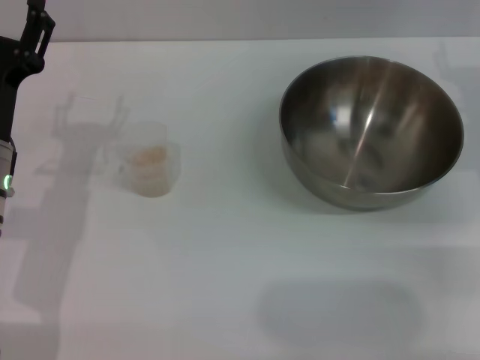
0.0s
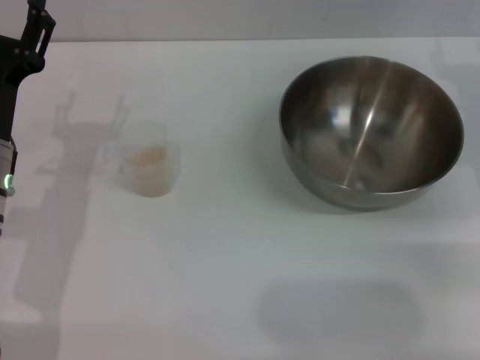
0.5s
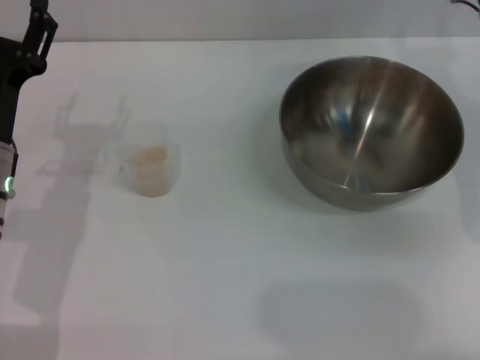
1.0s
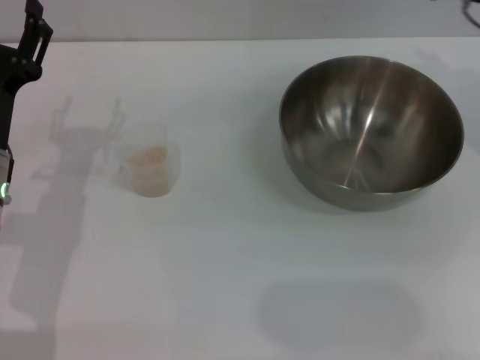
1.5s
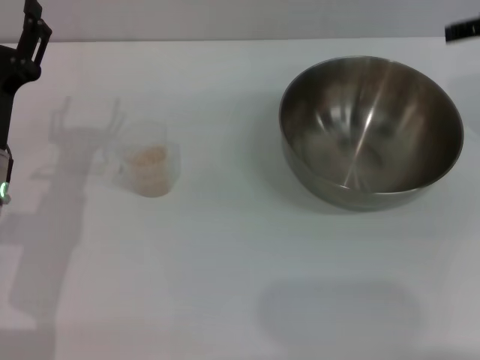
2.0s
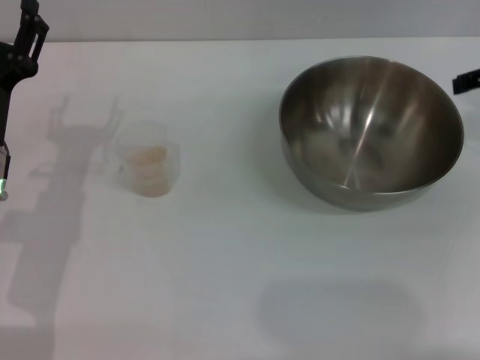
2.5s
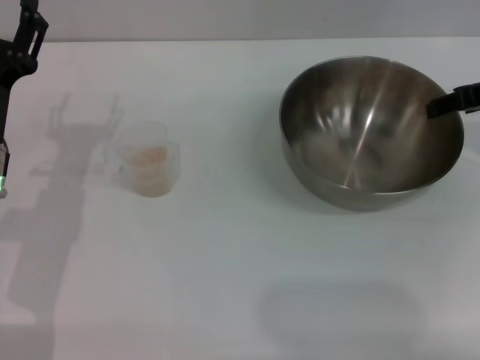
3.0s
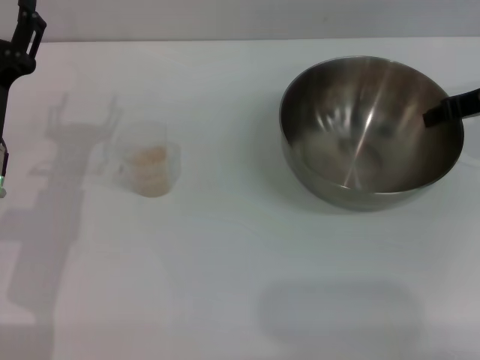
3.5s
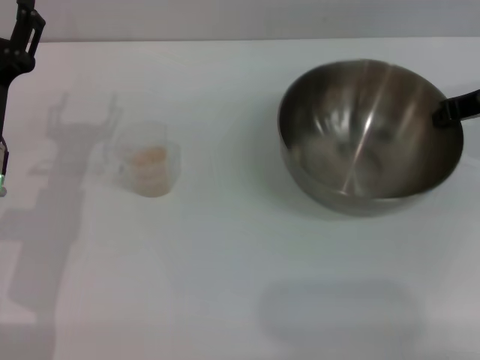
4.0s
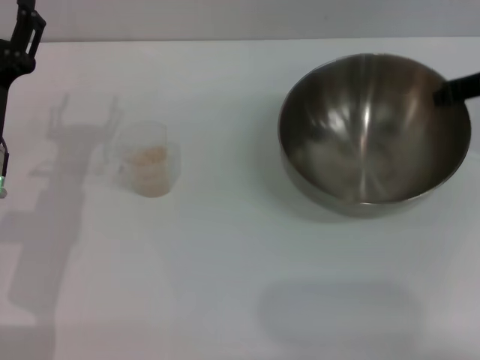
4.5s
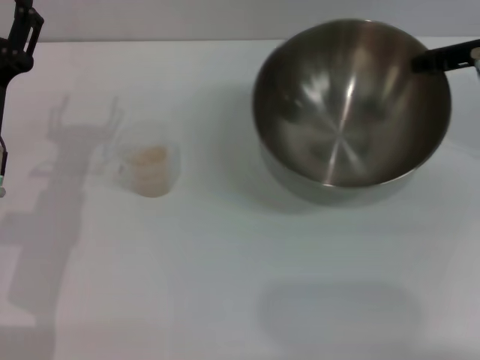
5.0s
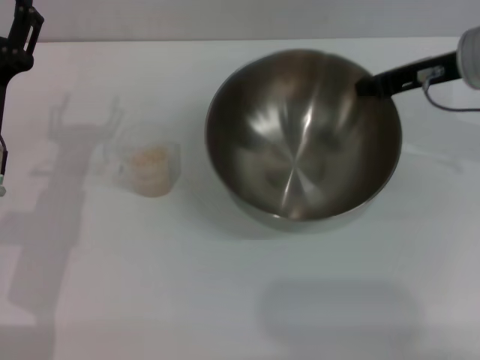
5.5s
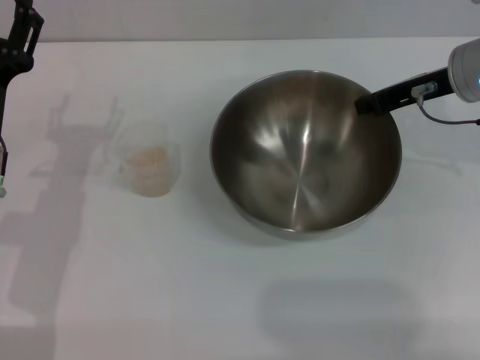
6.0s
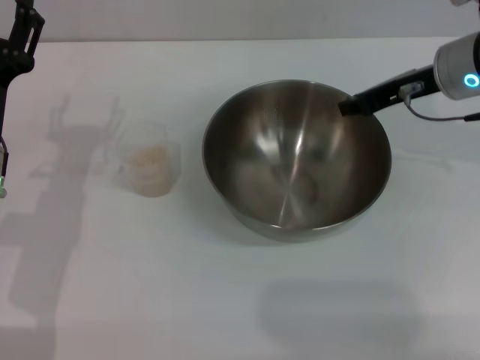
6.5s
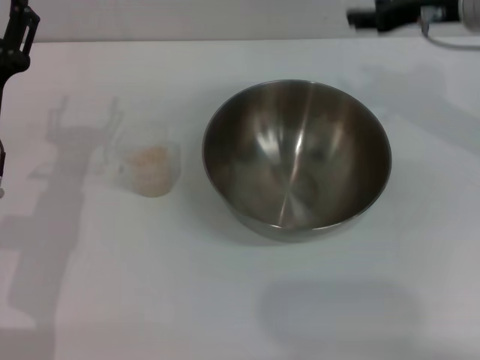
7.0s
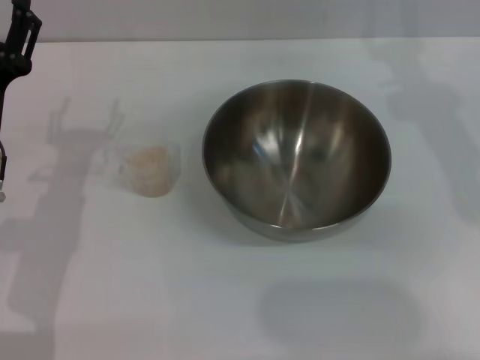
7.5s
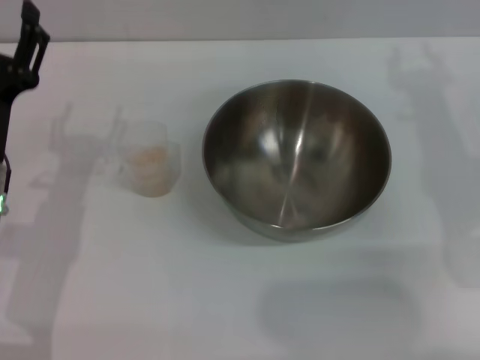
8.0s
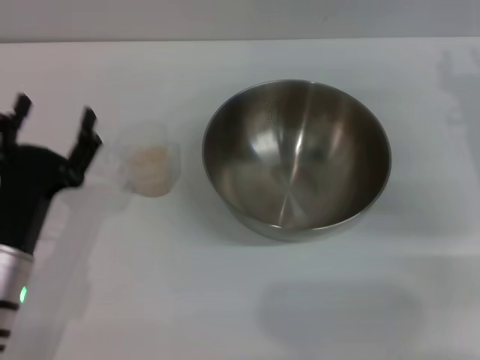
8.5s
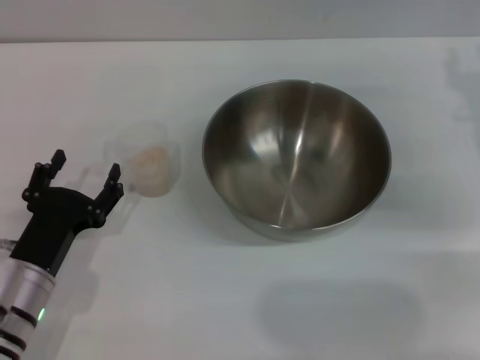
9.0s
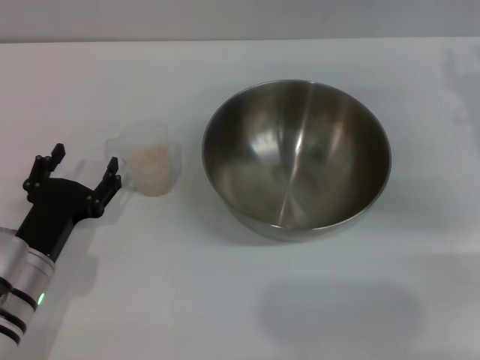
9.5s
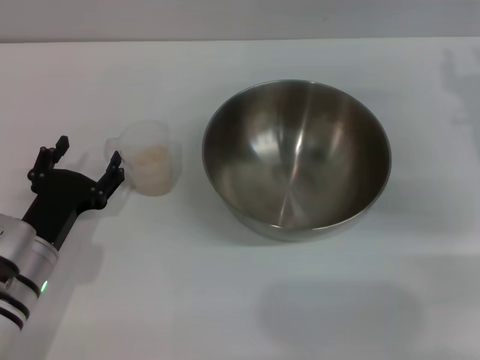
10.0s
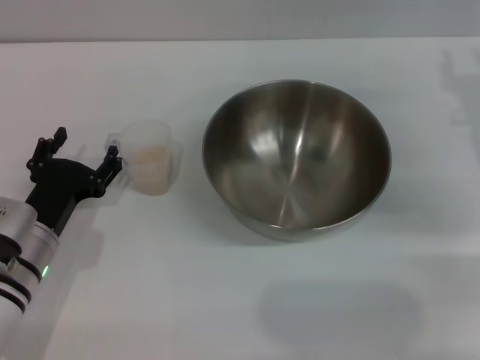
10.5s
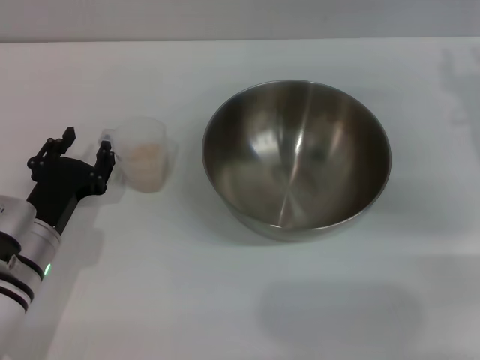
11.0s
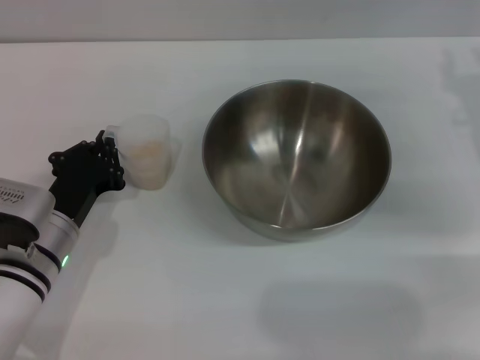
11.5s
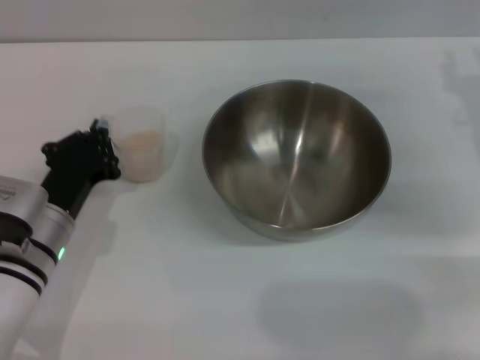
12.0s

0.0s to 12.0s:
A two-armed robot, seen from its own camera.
Task of the whole recording: Place the bowl in the middle of the table with one hand and pour the rice from the grain cup into it with the other hand.
Step, 0.0s to 4.5s: Pick up the bowl with the right gripper.
Step, 5.5s to 6.5s: Place the bowl in the center of view with the right gripper.
0.0s to 2.0s: The right gripper heads upward, covering some 15 cm.
2.0s to 4.0s: The right gripper moves downward, some 10 cm, and closes its fingers.
4.0s to 6.0s: The right gripper travels to the left by some 5 cm.
6.0s to 8.0s: The right gripper opens its fingers.
8.0s to 10.0s: The left gripper shifts some 5 cm downward, while the right gripper moves to the right, about 5 cm.
10.0s to 12.0s: The left gripper closes its fingers.

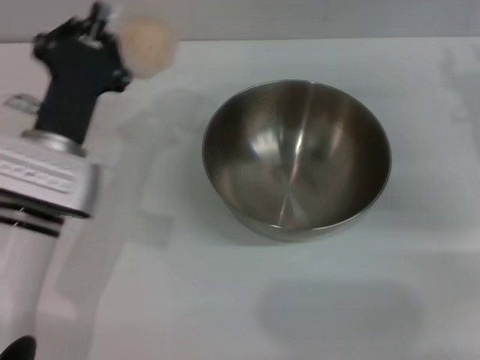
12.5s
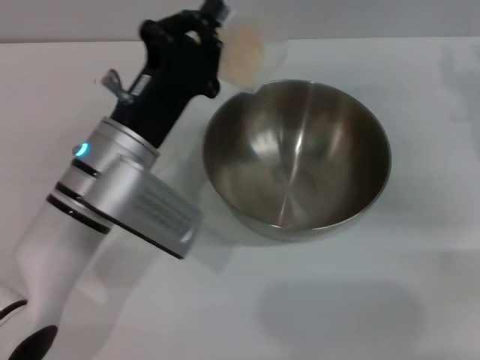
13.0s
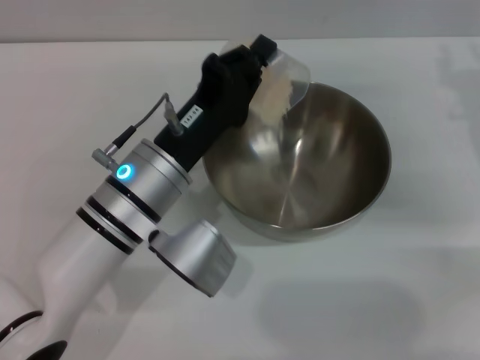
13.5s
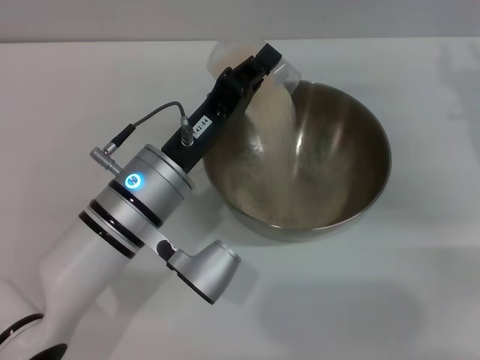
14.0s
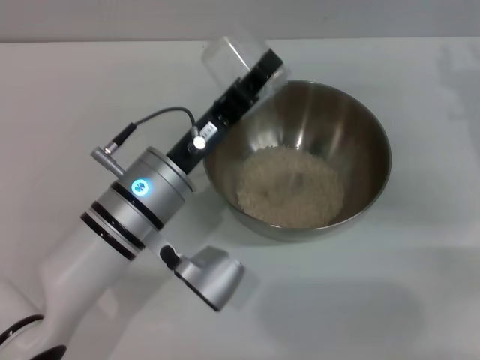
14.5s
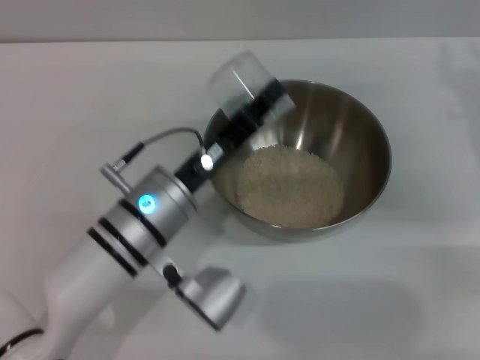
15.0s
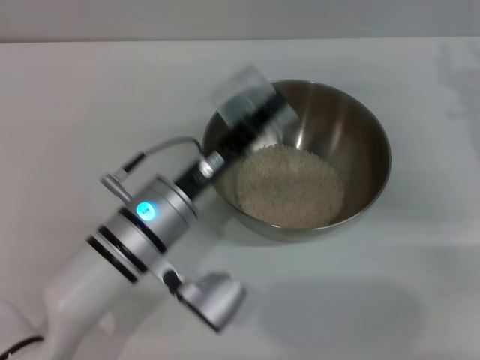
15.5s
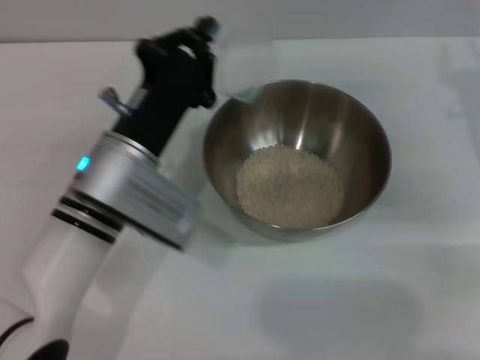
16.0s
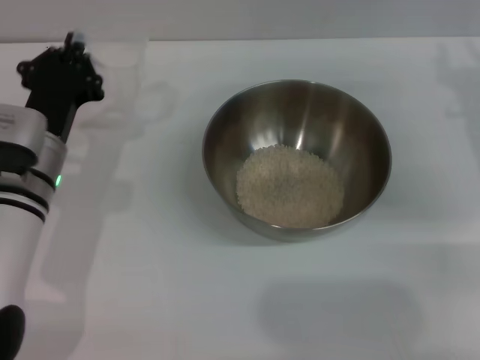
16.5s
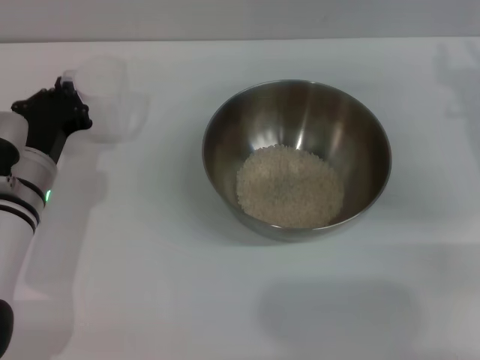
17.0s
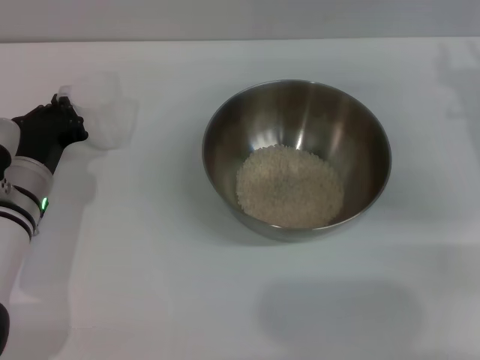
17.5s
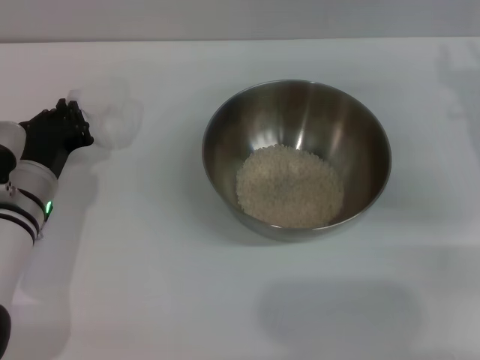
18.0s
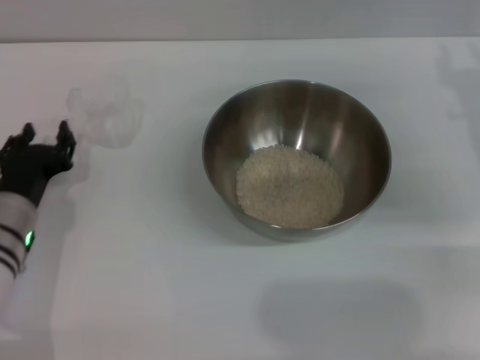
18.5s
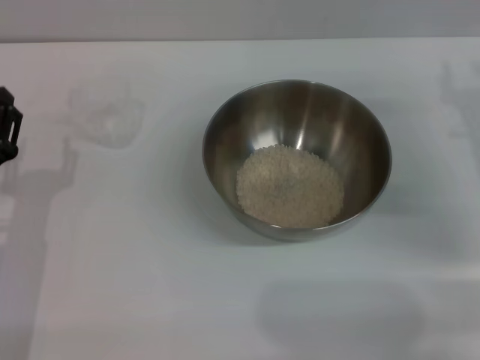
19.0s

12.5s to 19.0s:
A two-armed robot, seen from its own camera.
Task of the whole recording: Place the bowl in the middle of the table with one hand and pour the rice from the grain cup into it with the other hand.
Step, 12.5s to 15.5s: Pour the rice from the cup into the bowl with the left gripper.
Step, 16.0s to 18.0s: Place the cup on the table with the left gripper.
12.5s to 14.5s: The left gripper is displaced to the right by about 10 cm.
14.5s to 17.0s: The left gripper is displaced to the left by some 10 cm.
17.0s to 19.0s: The left gripper heads backward, covering approximately 10 cm, and opens up.

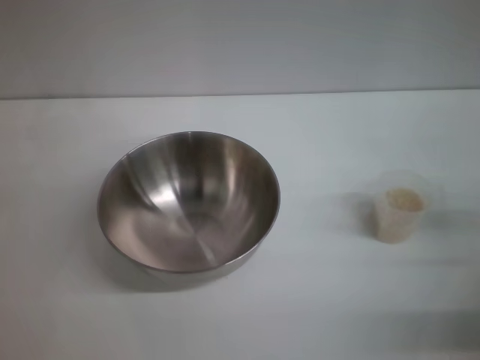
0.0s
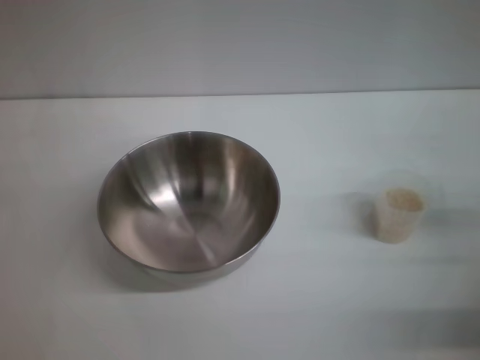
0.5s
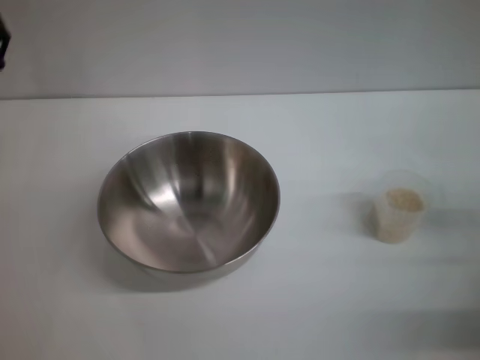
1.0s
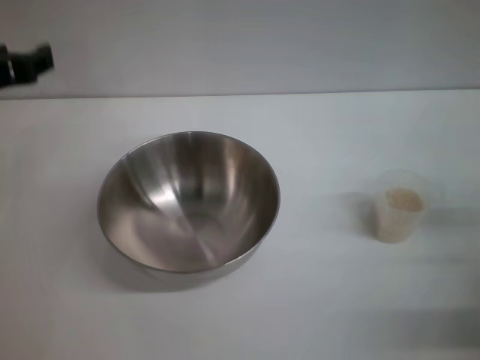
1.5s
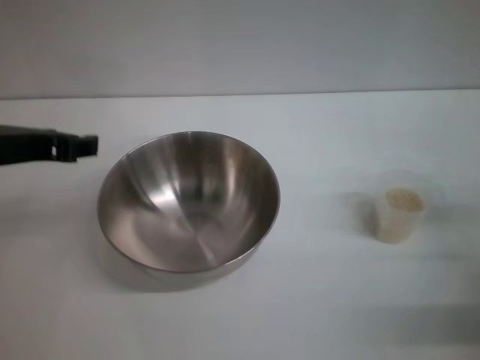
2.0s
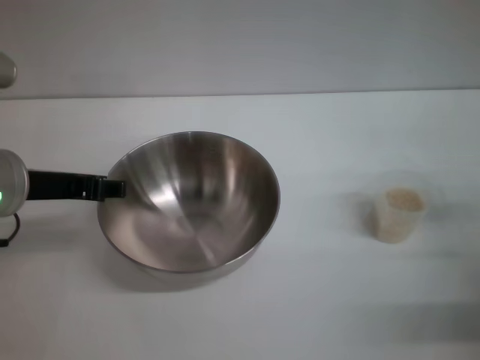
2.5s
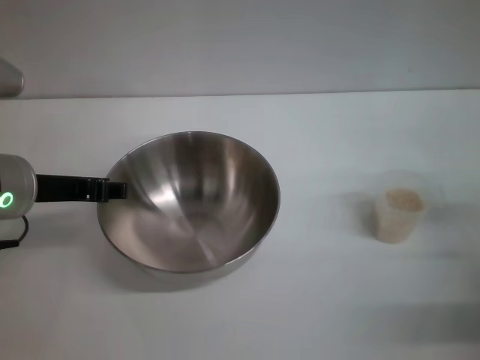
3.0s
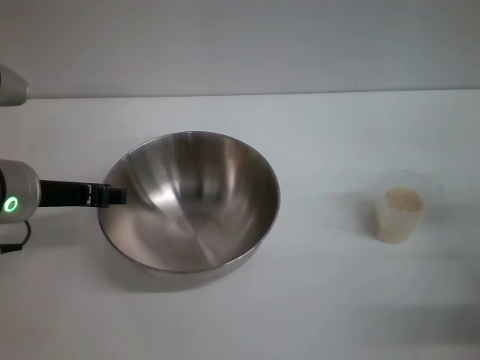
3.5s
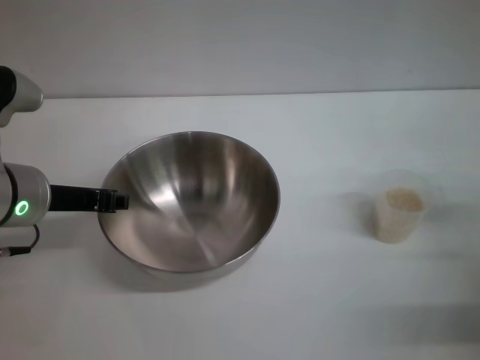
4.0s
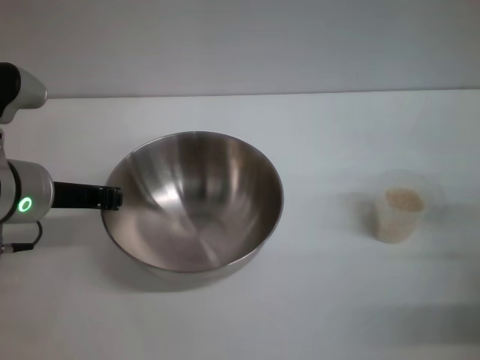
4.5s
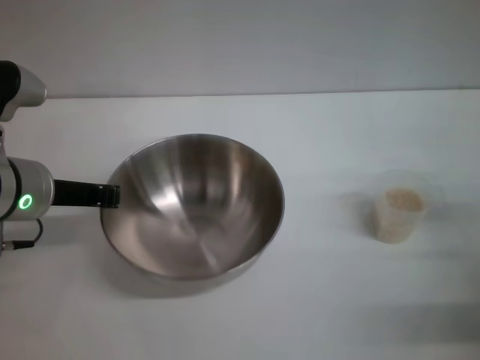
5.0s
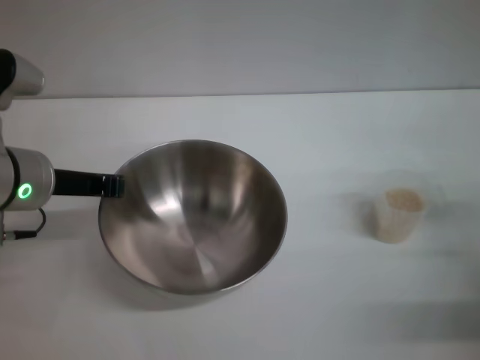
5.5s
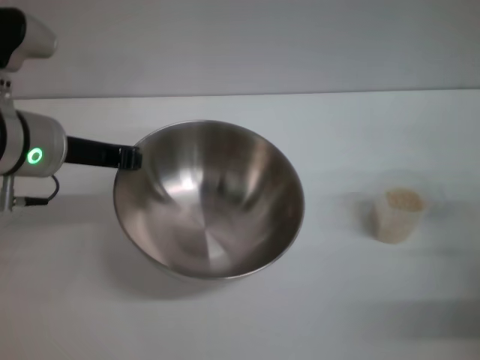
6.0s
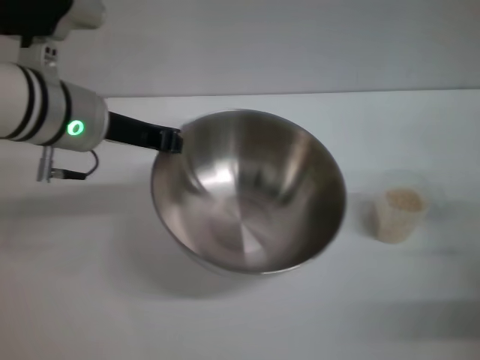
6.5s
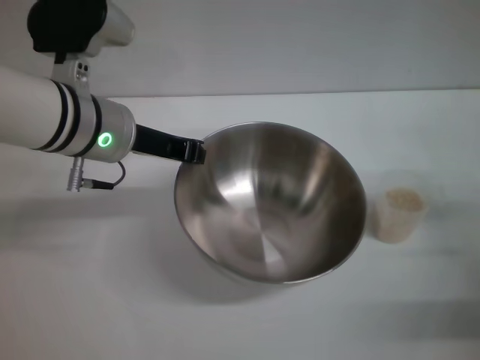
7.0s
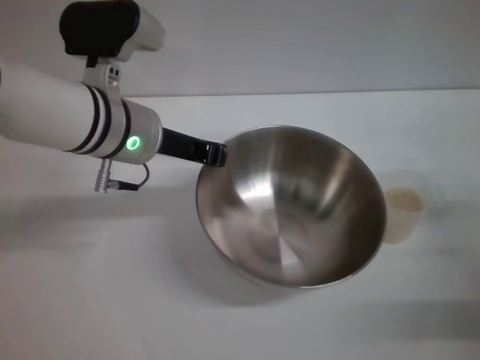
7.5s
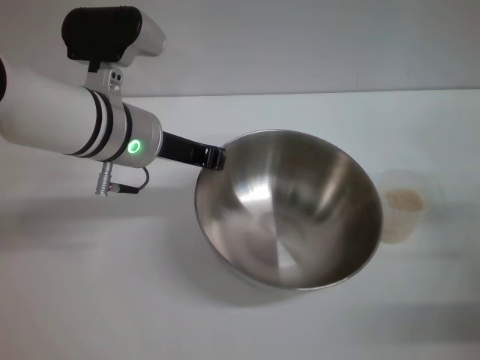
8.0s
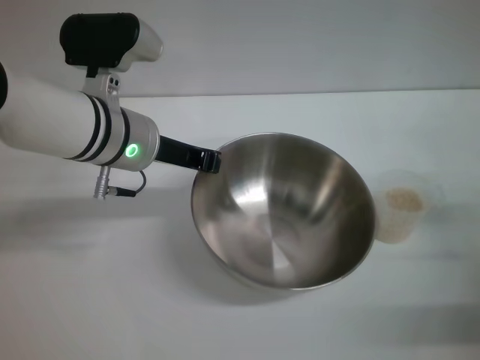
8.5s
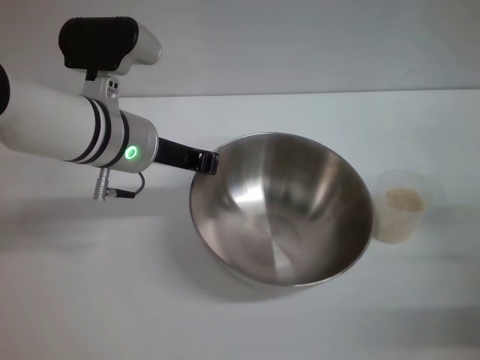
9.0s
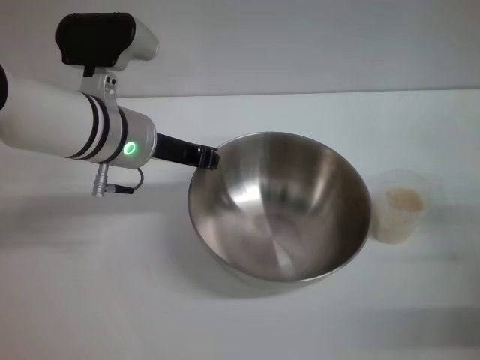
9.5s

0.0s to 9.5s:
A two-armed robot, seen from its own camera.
Task of the whole recording: Place the bowl in the middle of the table with one hand and pour the rice from the grain cup into it with the other hand.
Step, 0.0s to 6.0s: Pick up the bowl with the left gripper.
0.0s to 2.0s: The left gripper heads upward, covering approximately 15 cm.
2.0s to 4.0s: The left gripper goes some 5 cm downward.
4.0s to 5.5s: The left gripper closes up.
5.5s to 7.5s: The left gripper goes some 10 cm to the right.
7.5s to 9.5s: The grippers stay close to where they were, moving slightly.
